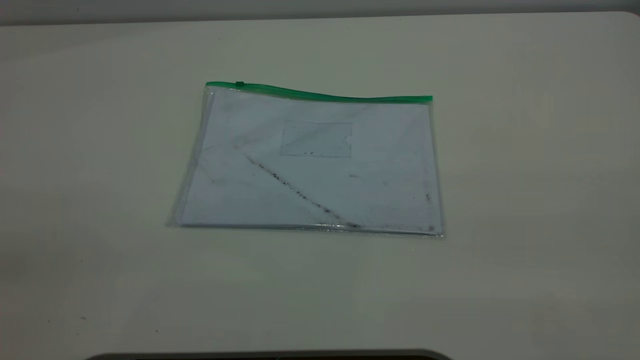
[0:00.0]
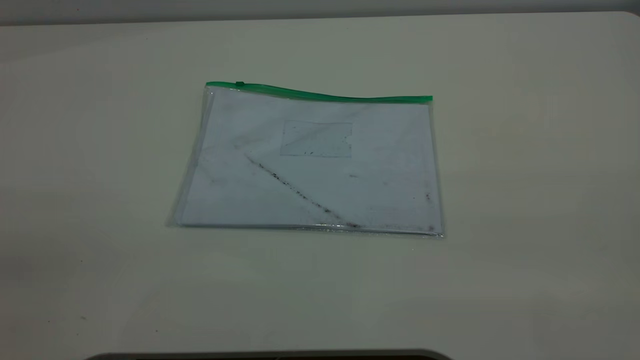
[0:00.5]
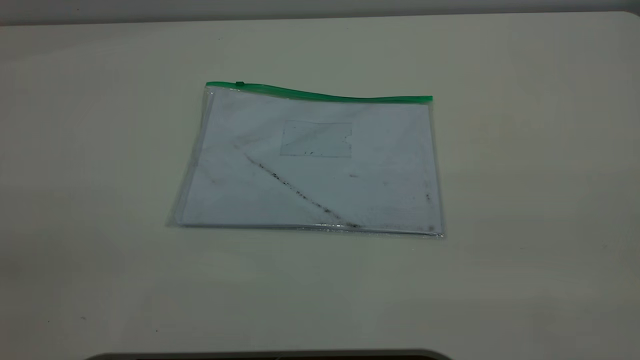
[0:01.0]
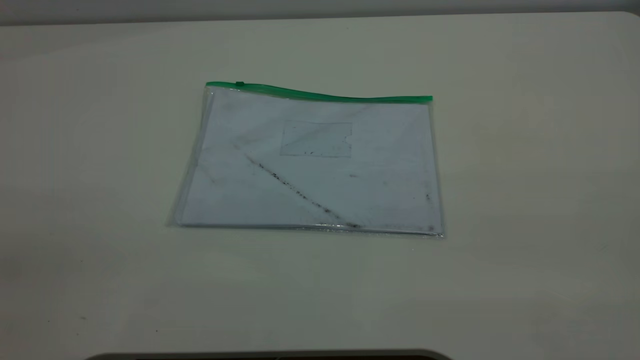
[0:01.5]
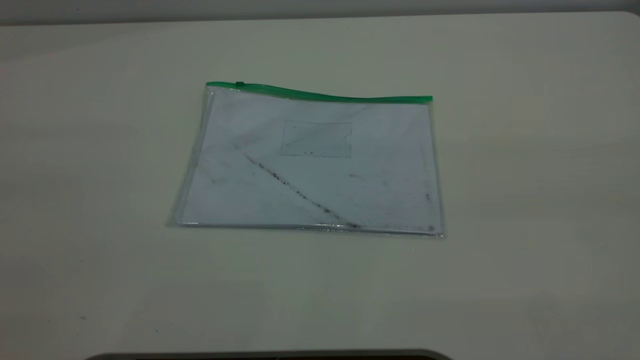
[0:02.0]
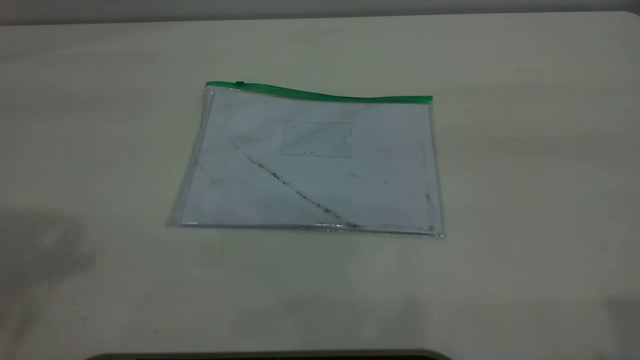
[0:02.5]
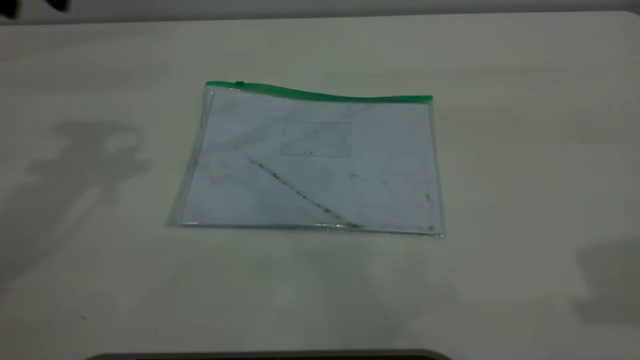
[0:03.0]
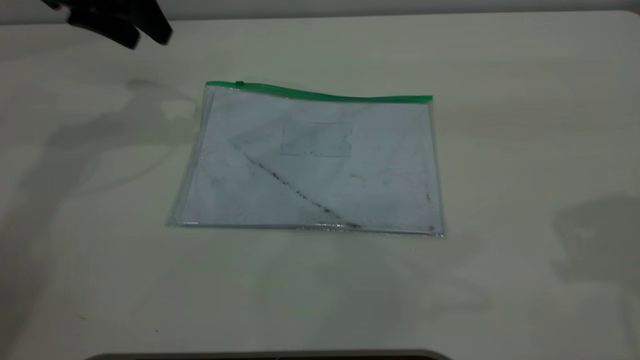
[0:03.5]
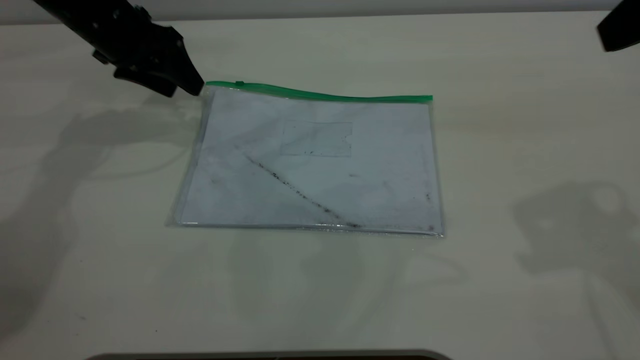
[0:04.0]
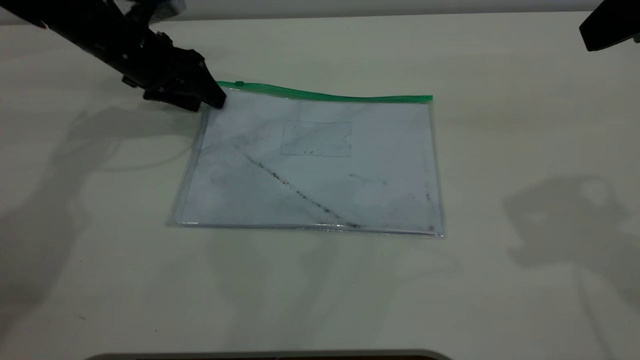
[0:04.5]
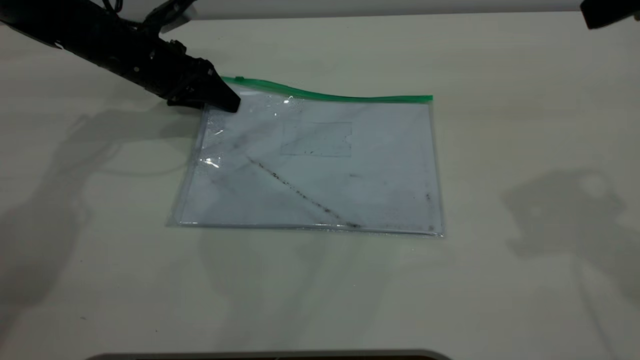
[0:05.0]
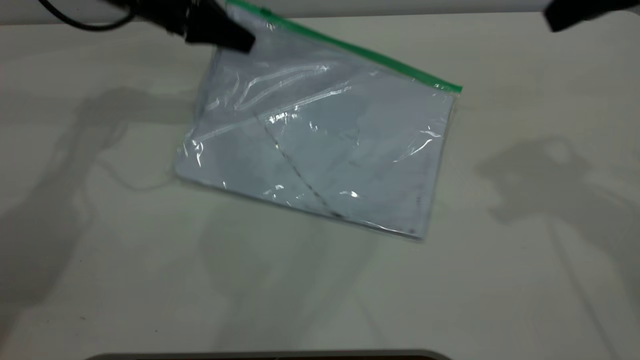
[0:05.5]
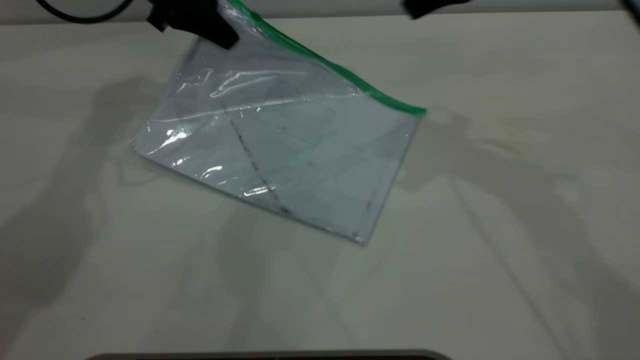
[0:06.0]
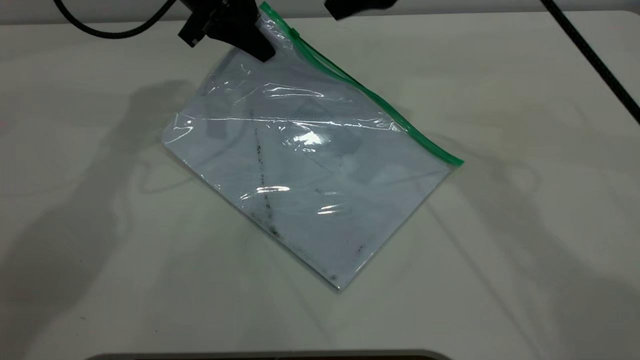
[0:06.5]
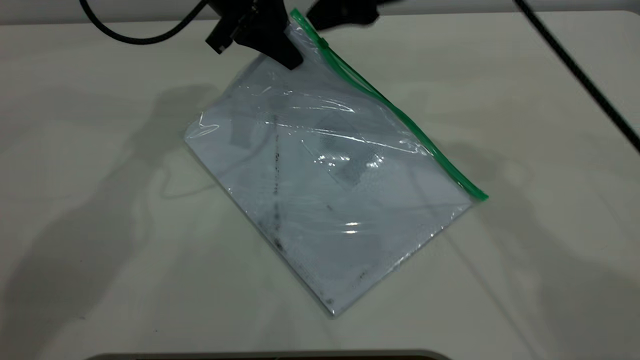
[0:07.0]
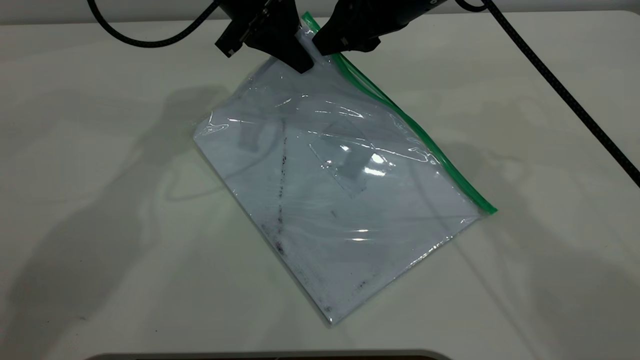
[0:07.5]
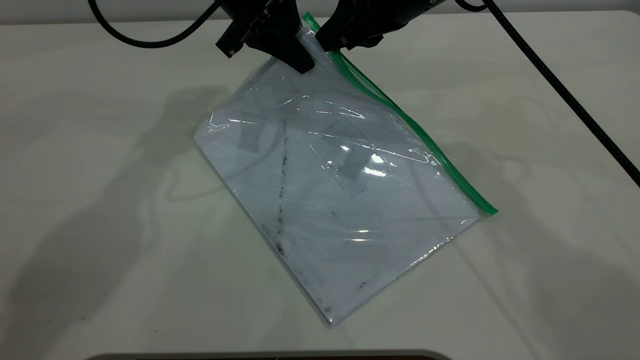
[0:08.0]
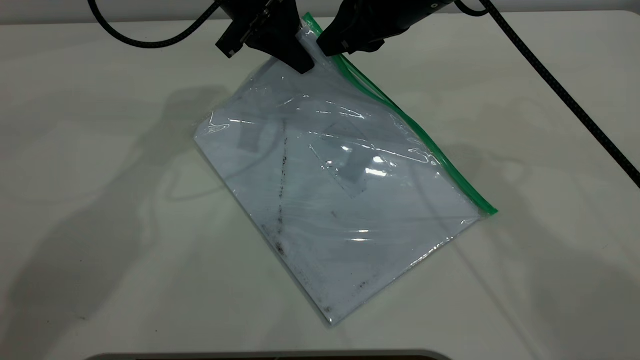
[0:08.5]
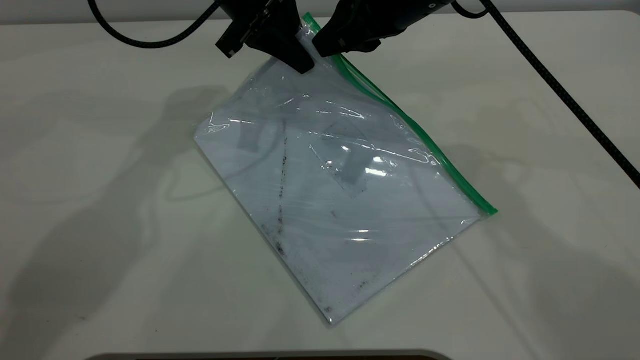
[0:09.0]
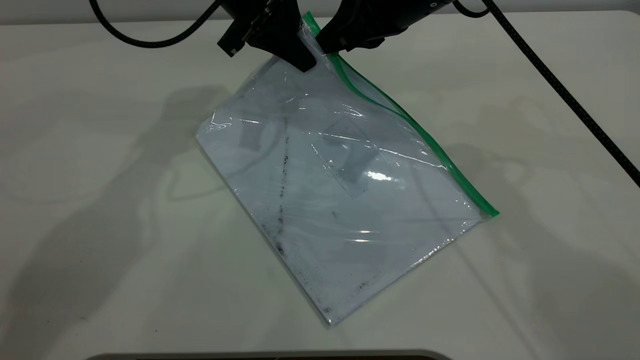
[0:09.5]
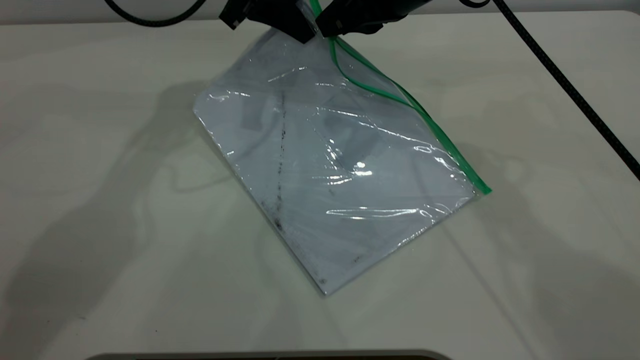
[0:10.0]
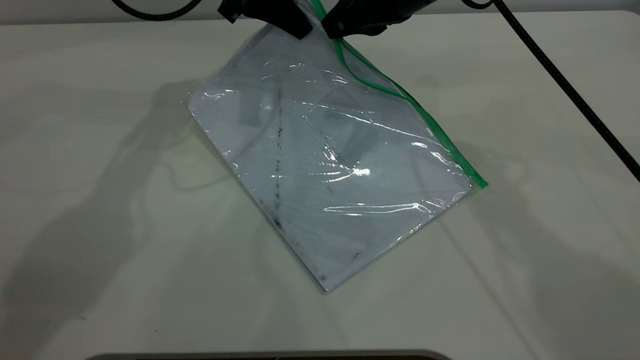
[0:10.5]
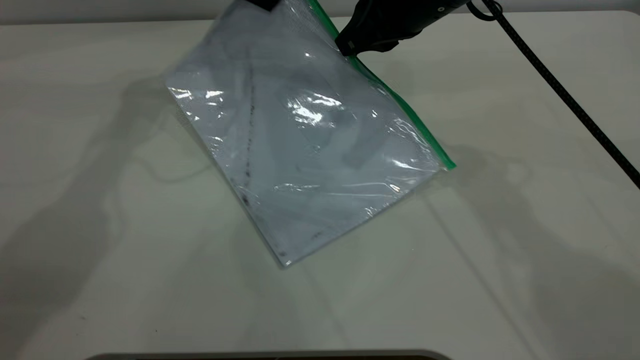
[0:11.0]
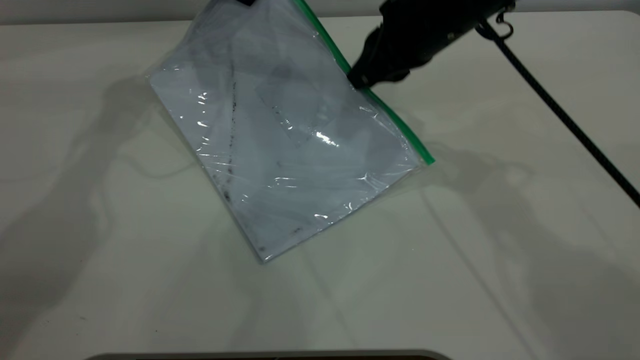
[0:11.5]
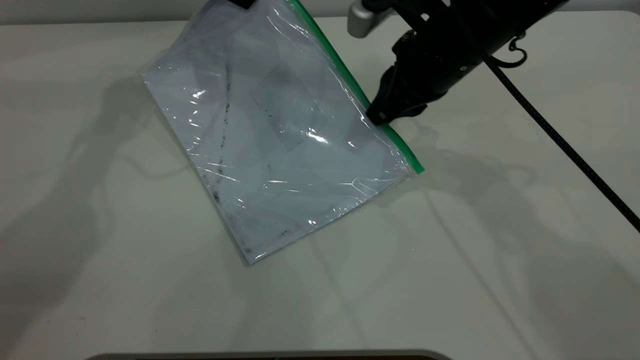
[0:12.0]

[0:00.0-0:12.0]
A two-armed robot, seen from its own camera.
Step, 0:00.0 to 0:05.5: Pick up the transparent plastic bag with the left gripper.
0:02.0 to 0:04.0: The left gripper goes roughly 50 cm forward and downward; the right gripper is displaced forward and downward by approximately 25 cm.
0:04.0 to 0:06.0: The right gripper heads forward and to the left, covering some 20 cm; the left gripper goes roughly 5 cm to the right, and closes.
0:06.0 to 0:08.0: The right gripper goes about 10 cm downward and to the left, and closes its fingers. Meanwhile the left gripper is displaced to the right by approximately 10 cm.
0:08.0 to 0:10.0: The right gripper closes.
0:10.0 to 0:12.0: The right gripper moves downward, about 5 cm, while the left gripper moves to the left, roughly 5 cm.

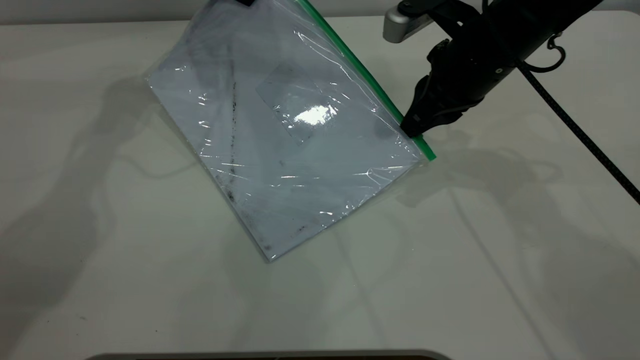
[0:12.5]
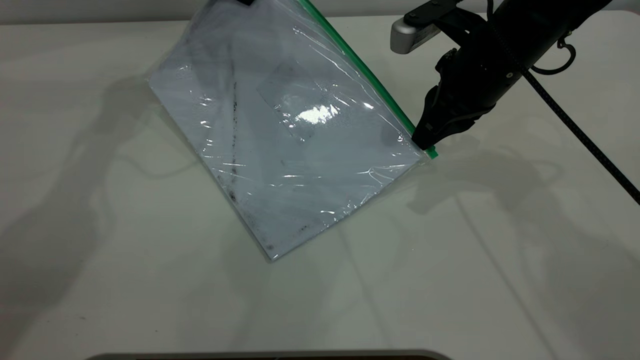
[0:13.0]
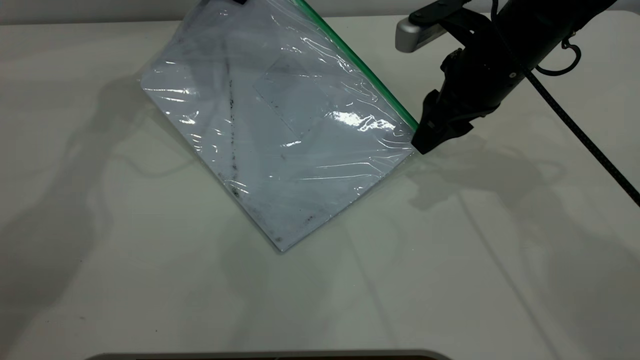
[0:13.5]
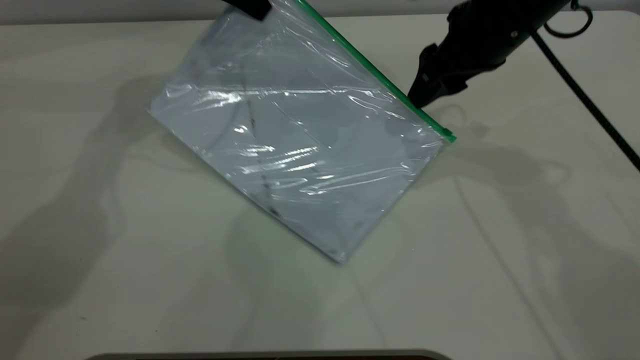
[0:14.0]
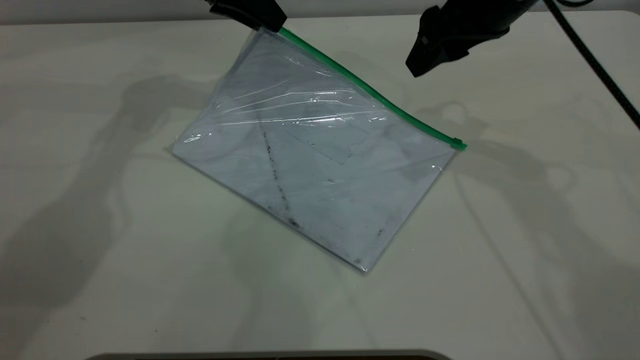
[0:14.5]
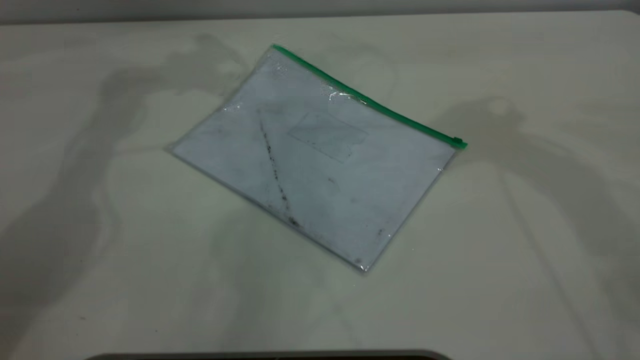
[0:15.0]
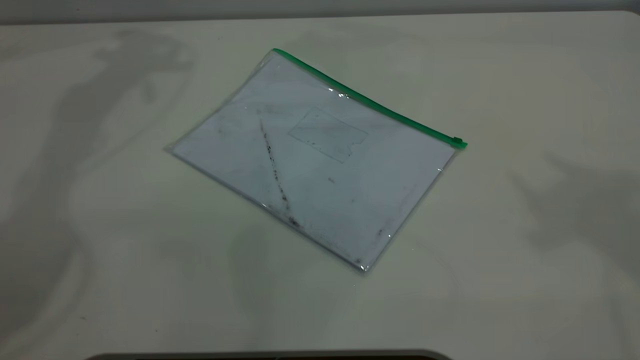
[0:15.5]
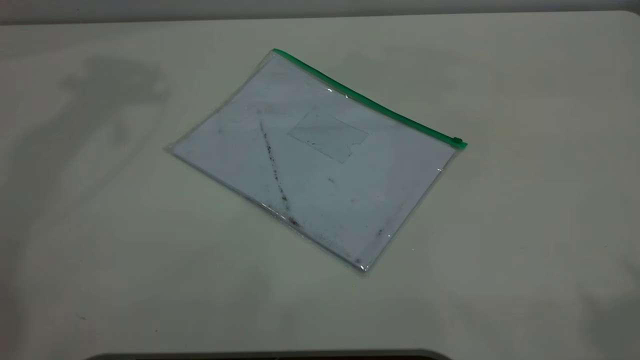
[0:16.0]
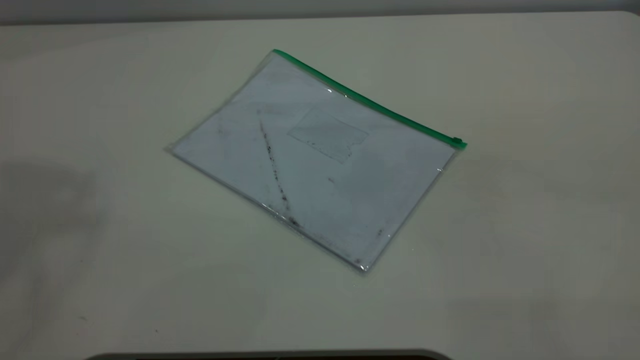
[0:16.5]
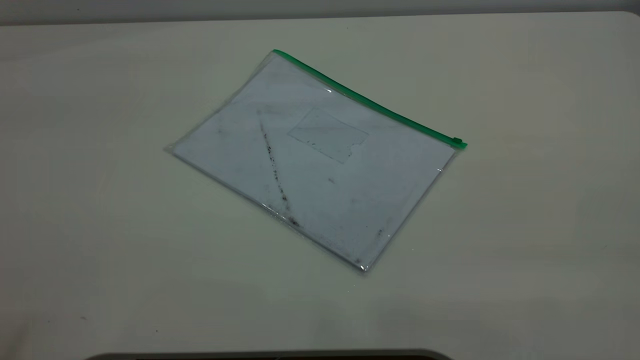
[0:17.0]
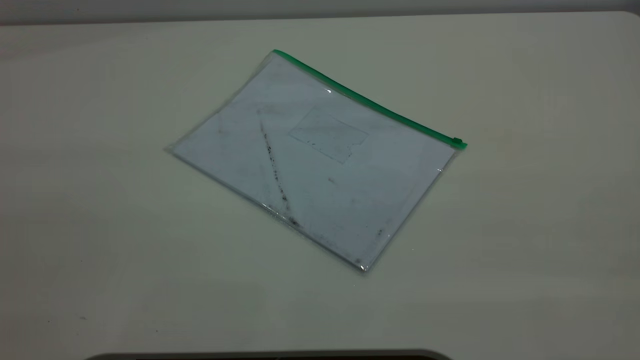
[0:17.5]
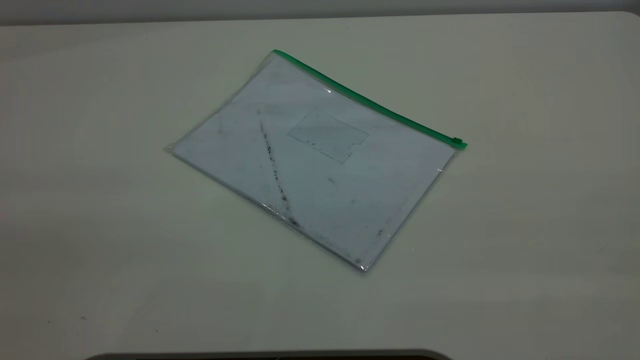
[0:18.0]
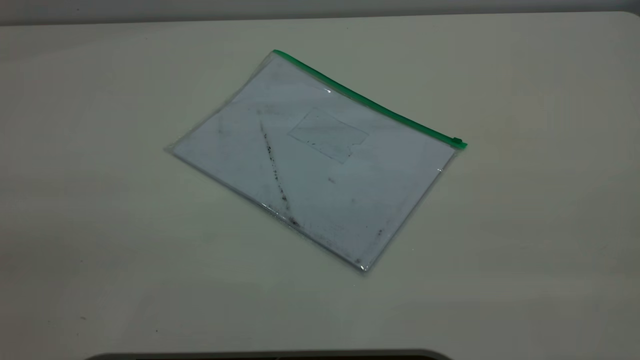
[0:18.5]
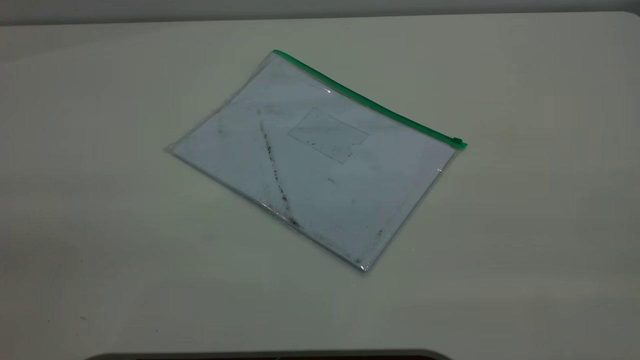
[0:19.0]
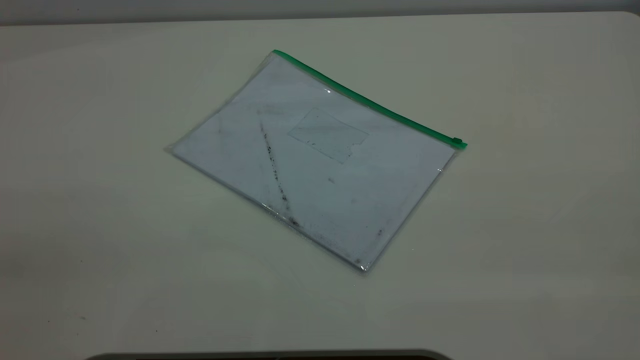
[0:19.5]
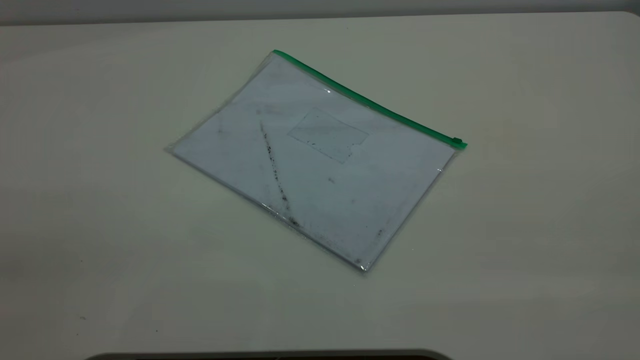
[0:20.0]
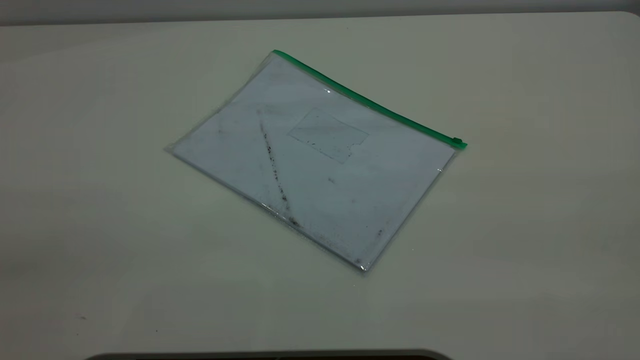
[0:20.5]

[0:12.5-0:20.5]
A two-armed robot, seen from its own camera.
0:12.5 to 0:14.5: The left gripper opens up. Meanwhile the right gripper moves upward, roughly 5 cm, and opens its fingers.
0:14.5 to 0:16.5: The left gripper heads upward and backward, covering about 50 cm. The right gripper heads backward and upward, covering some 40 cm.
